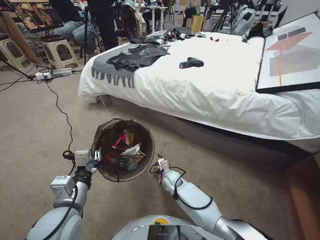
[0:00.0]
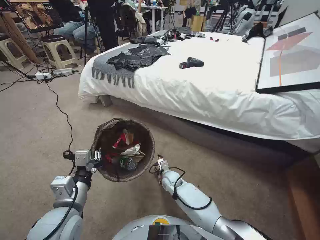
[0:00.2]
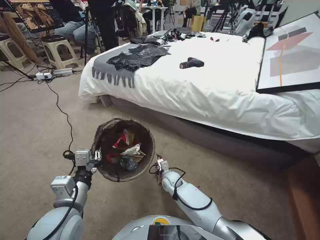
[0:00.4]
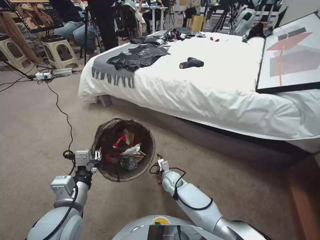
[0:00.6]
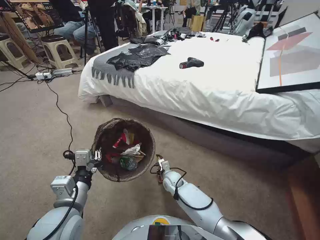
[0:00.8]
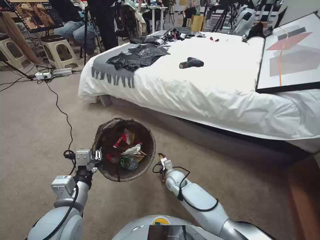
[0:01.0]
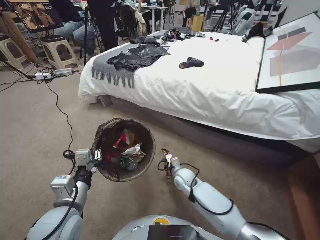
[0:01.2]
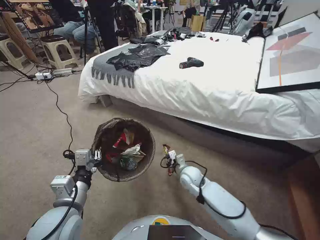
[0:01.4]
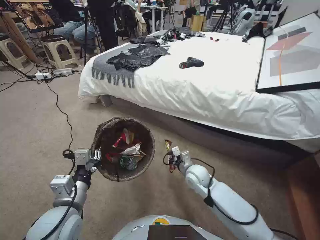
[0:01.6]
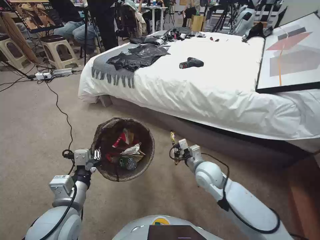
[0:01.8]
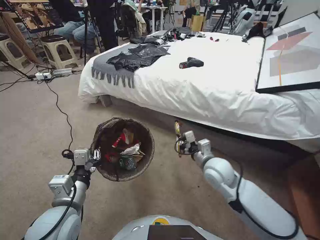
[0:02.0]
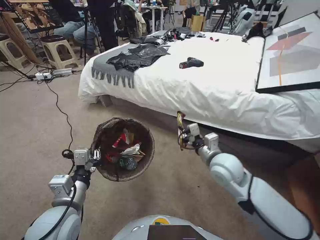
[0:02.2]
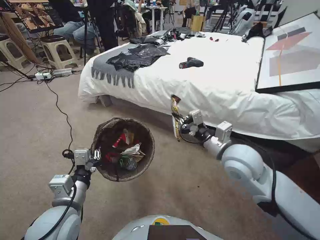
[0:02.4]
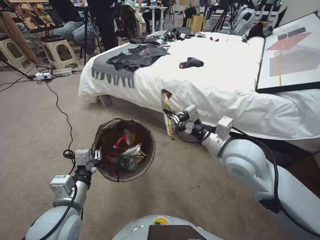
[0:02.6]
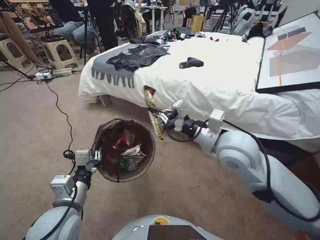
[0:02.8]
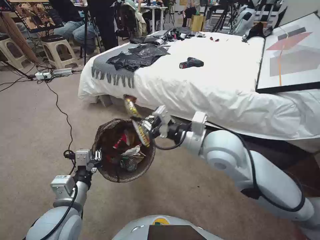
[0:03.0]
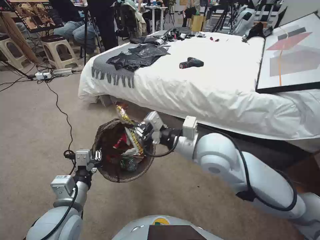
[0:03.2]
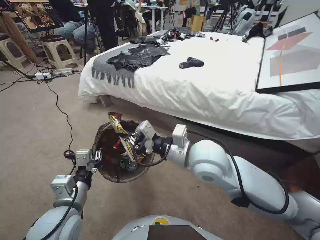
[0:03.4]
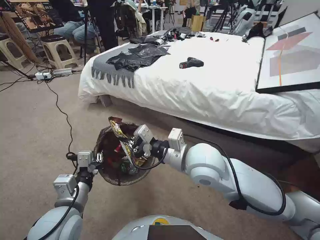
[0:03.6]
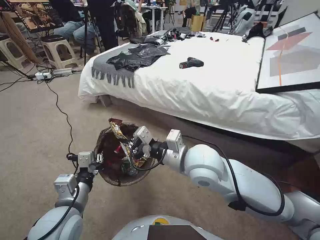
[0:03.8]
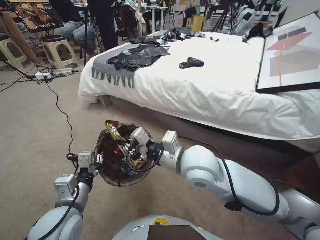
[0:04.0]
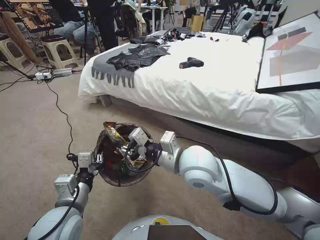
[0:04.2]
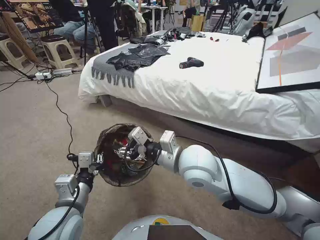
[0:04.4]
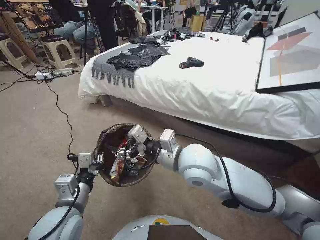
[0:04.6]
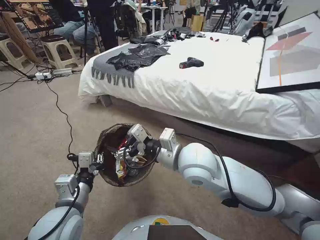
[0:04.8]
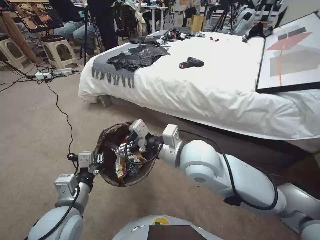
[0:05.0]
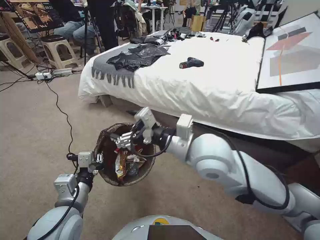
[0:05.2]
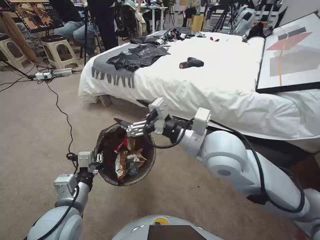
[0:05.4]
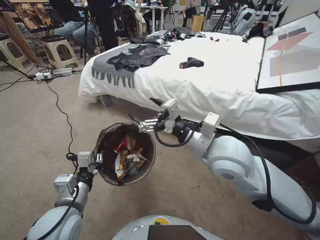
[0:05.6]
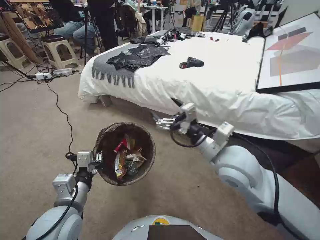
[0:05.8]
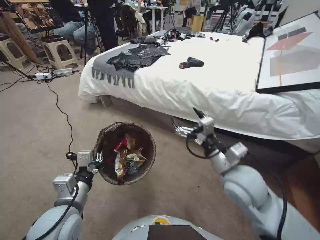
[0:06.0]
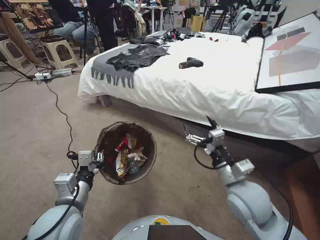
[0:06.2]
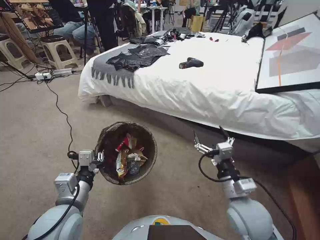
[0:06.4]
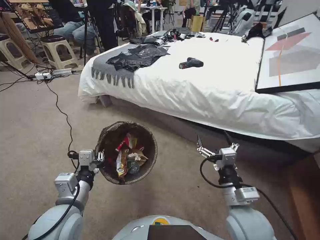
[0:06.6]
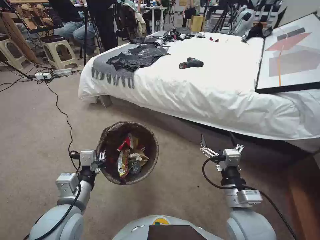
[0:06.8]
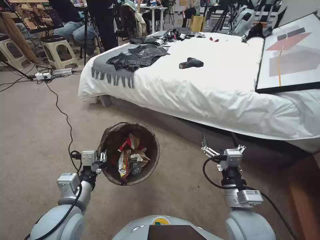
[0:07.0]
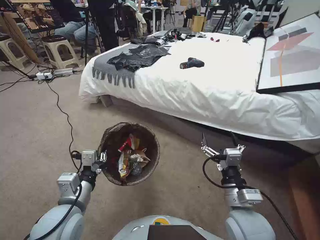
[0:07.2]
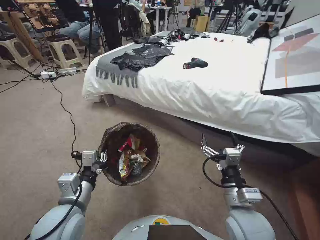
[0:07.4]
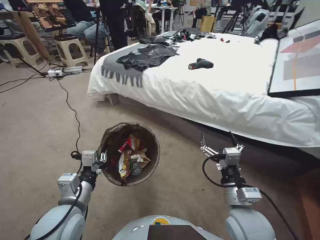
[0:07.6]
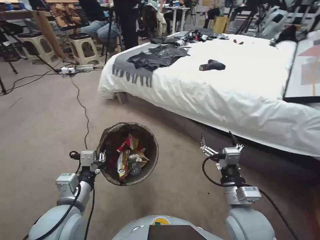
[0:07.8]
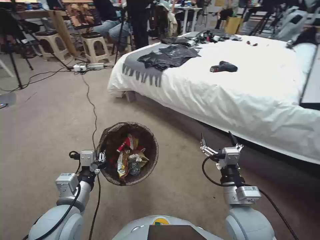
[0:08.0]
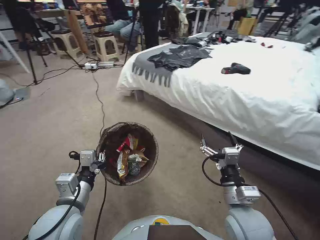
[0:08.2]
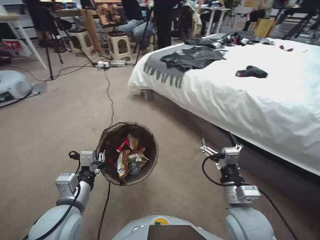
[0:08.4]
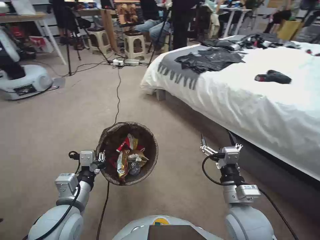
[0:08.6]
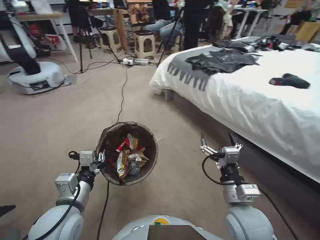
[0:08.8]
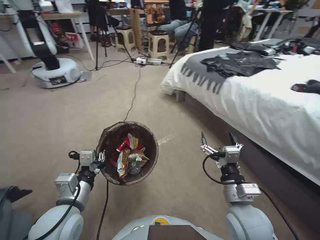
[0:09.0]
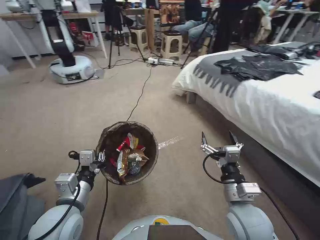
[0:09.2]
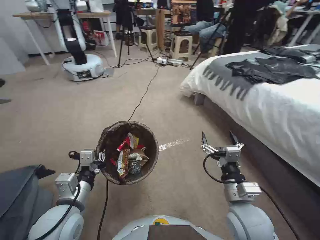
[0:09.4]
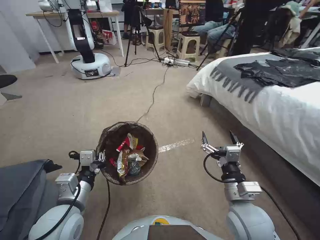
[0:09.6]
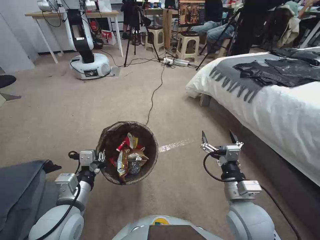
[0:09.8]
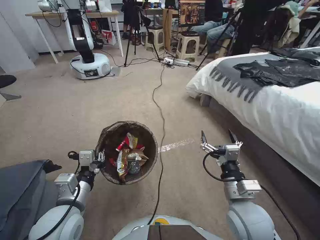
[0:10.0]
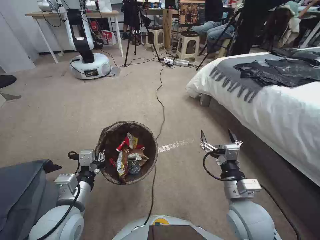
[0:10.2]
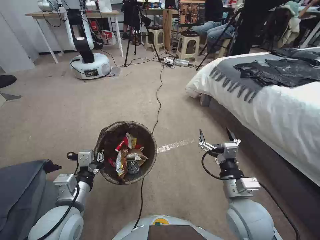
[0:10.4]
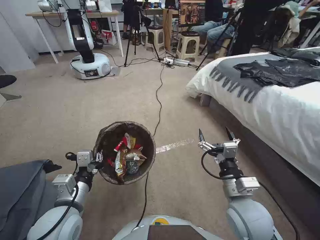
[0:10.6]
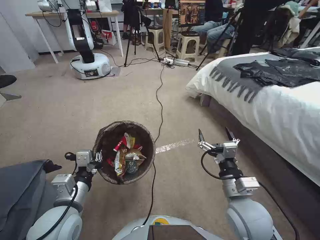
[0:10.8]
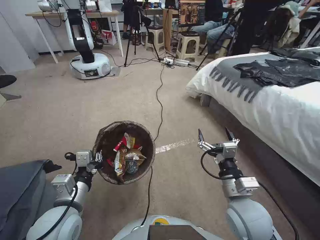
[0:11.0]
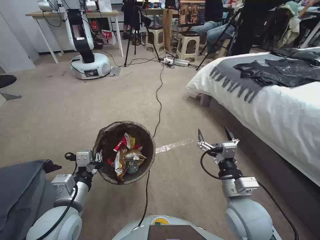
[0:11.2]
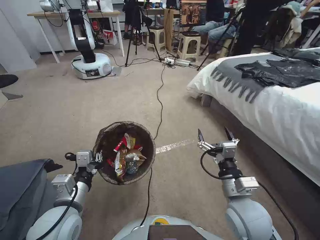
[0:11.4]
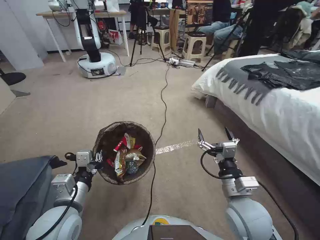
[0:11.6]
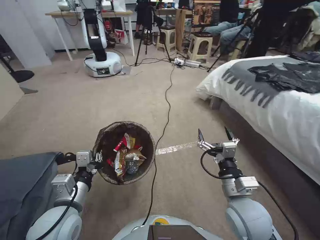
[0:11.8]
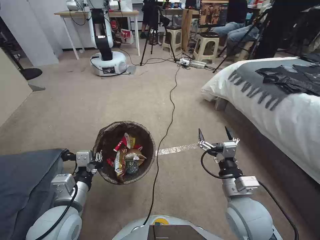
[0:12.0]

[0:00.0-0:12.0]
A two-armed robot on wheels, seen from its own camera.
Task of the whole recording: Pick up the trash bin, then pick up the garbage from the floor and place it into the trash bin.
0:00.0 to 0:01.6: The right gripper is displaced upward and to the right by approximately 15 cm, and closes.
0:01.6 to 0:03.0: The right gripper heads upward, covering some 30 cm.
0:03.0 to 0:04.4: The right gripper heads to the left, covering roughly 5 cm, and opens.
0:04.4 to 0:06.0: The right gripper is displaced to the right by about 10 cm, and opens.
0:06.0 to 0:07.6: The right gripper shifts about 15 cm backward and downward.

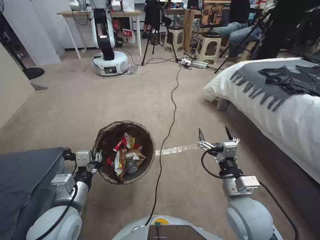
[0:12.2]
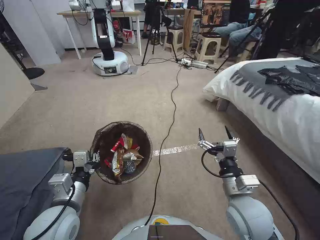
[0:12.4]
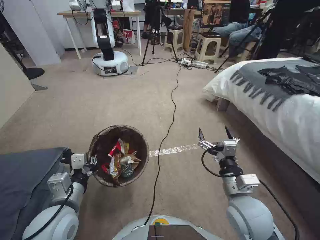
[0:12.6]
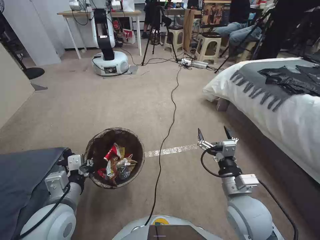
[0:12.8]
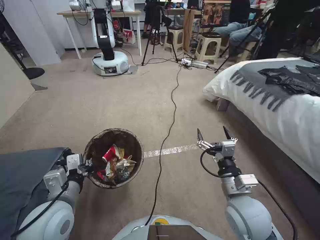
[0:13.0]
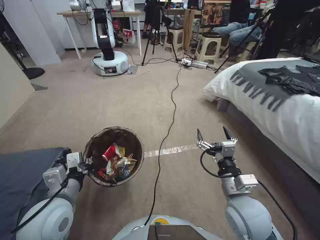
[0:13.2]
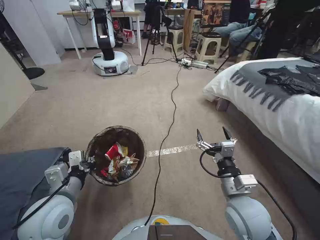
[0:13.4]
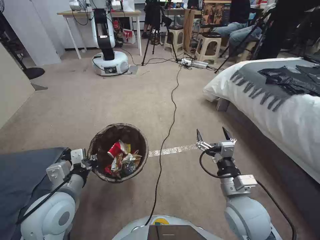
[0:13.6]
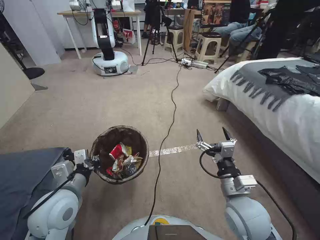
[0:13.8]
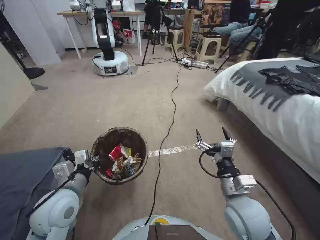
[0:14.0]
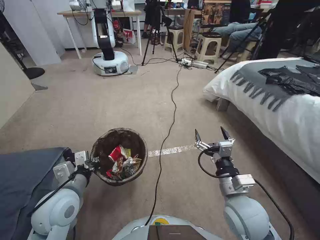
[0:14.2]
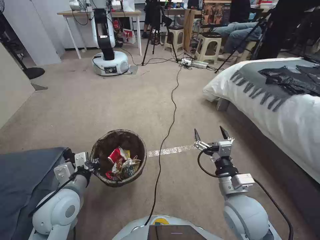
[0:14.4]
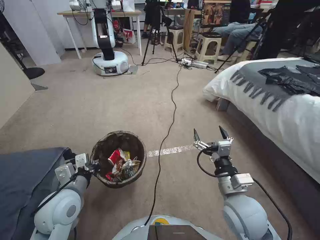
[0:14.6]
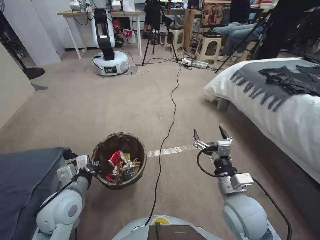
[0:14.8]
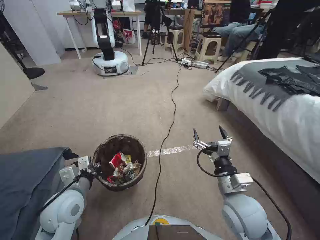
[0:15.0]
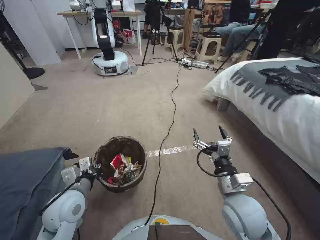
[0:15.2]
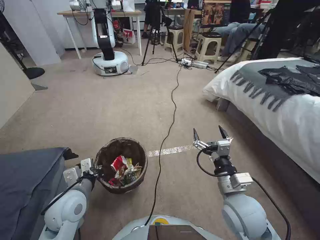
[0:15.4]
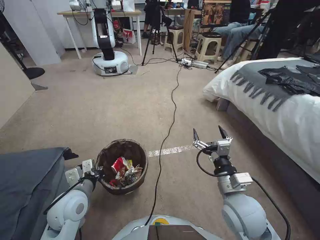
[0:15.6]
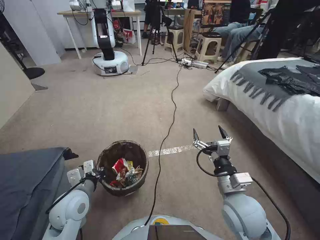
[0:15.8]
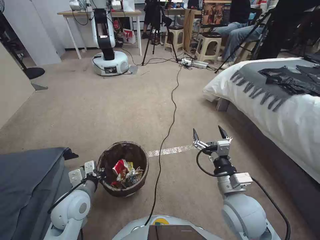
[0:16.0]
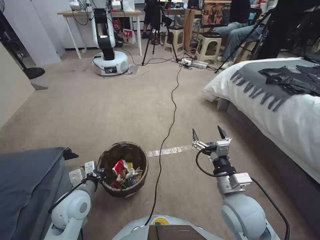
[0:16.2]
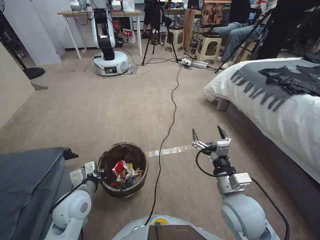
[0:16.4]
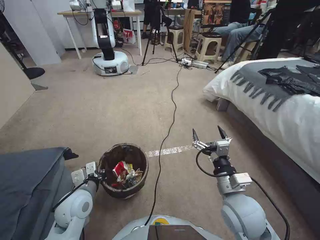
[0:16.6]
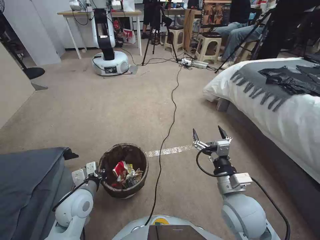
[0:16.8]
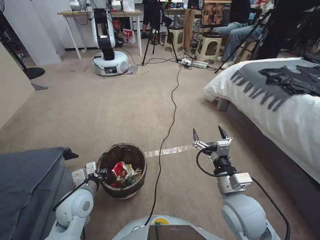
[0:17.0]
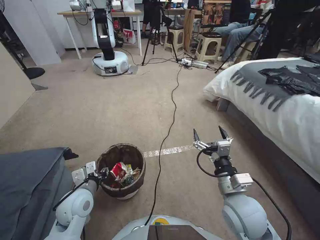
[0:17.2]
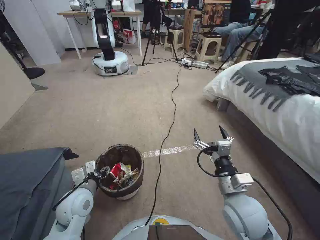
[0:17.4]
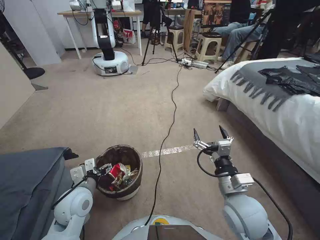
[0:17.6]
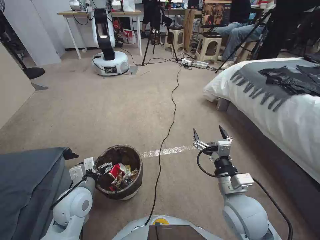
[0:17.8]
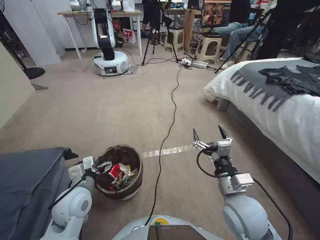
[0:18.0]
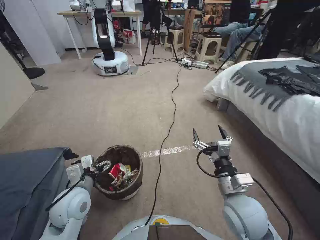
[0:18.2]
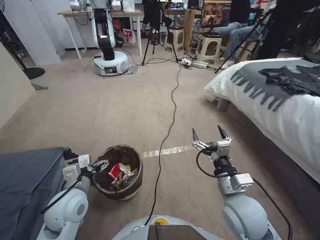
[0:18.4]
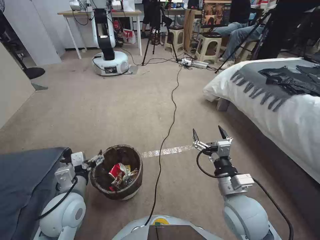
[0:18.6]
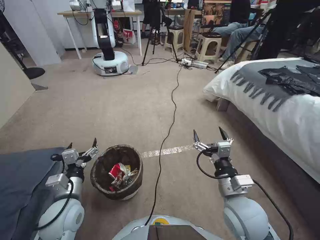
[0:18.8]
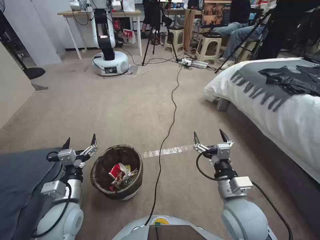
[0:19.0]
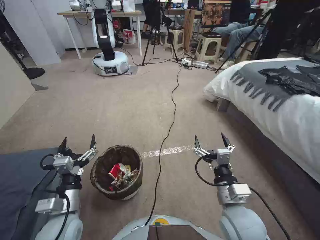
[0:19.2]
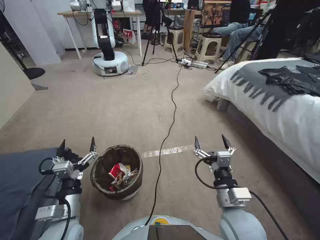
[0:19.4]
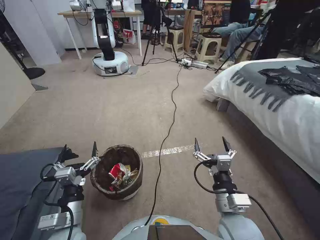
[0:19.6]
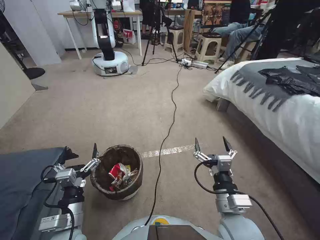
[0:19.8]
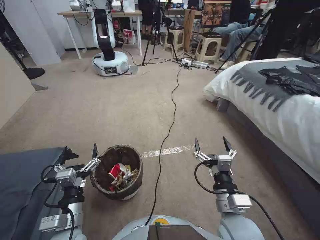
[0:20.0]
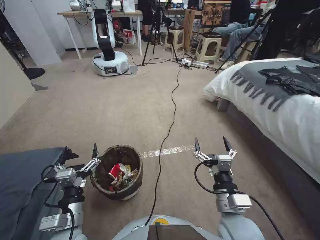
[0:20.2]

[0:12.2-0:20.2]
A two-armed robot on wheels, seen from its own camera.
Task of the whole recording: Pick up the trash bin, then pick up the garbage from the floor and place it into the trash bin.
0:12.2 to 0:13.8: The grippers move only a little.
0:13.8 to 0:15.4: The left gripper travels downward by about 5 cm.
0:15.4 to 0:17.0: The grippers make only small movements.
0:17.0 to 0:18.6: The left gripper changes place by about 5 cm, and opens up.
0:18.6 to 0:20.2: The left gripper is displaced backward and downward by about 10 cm. Meanwhile the right gripper changes place by approximately 5 cm.
